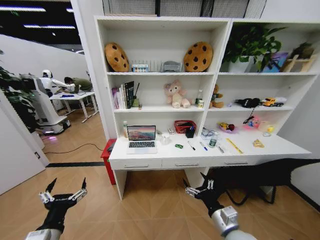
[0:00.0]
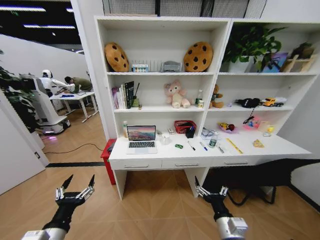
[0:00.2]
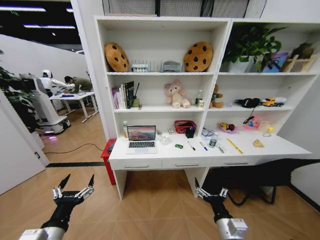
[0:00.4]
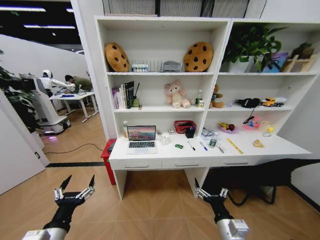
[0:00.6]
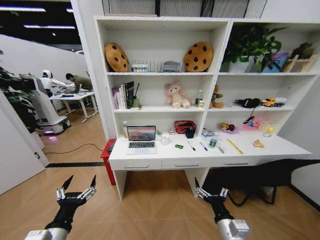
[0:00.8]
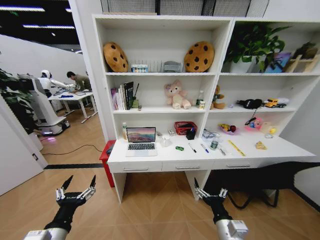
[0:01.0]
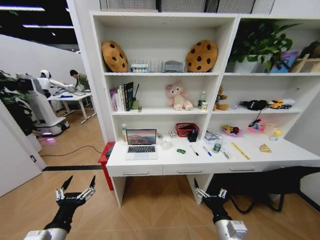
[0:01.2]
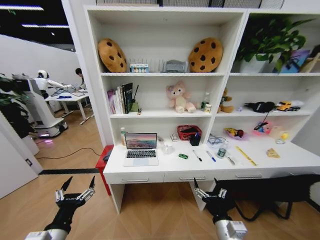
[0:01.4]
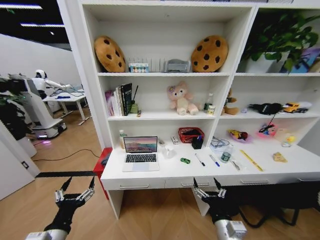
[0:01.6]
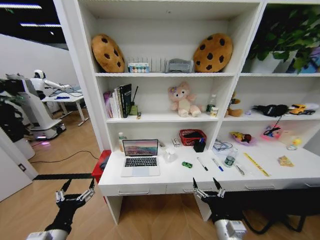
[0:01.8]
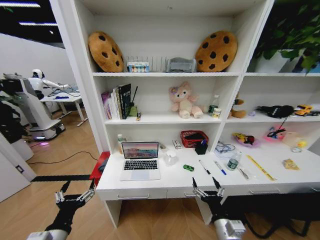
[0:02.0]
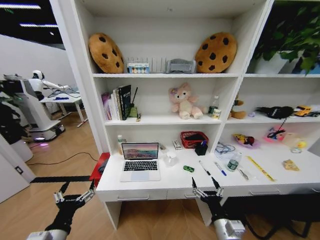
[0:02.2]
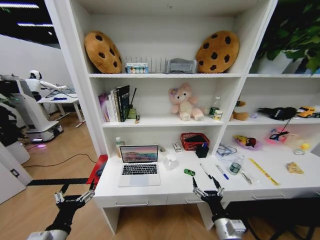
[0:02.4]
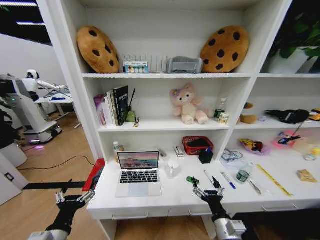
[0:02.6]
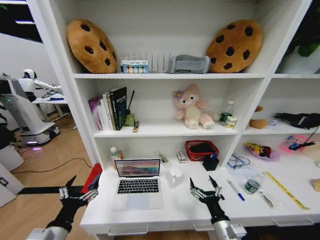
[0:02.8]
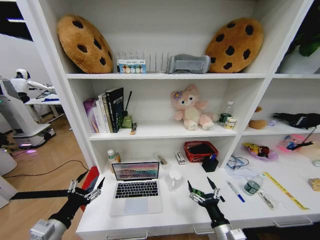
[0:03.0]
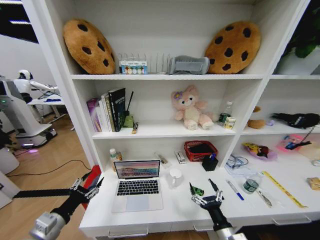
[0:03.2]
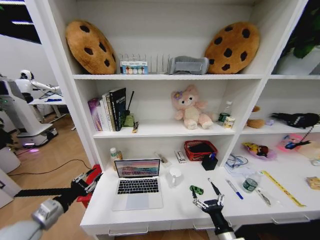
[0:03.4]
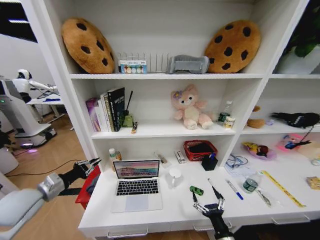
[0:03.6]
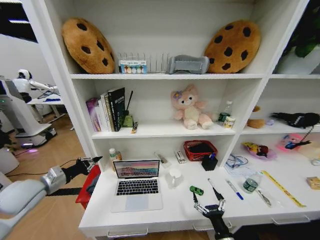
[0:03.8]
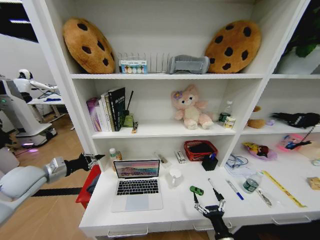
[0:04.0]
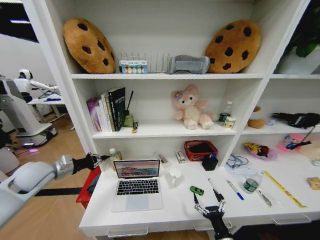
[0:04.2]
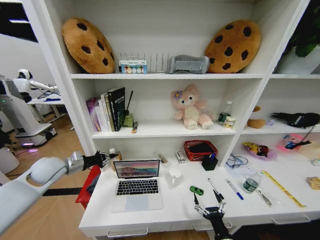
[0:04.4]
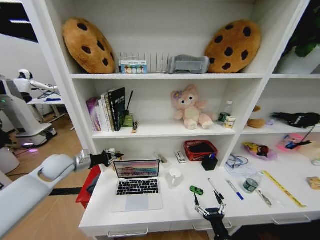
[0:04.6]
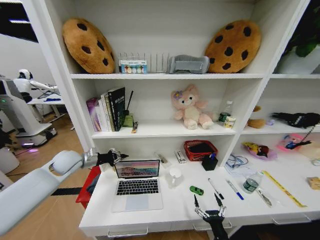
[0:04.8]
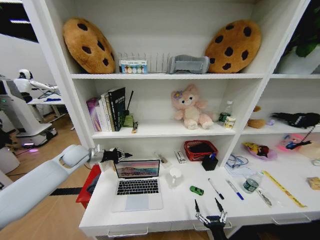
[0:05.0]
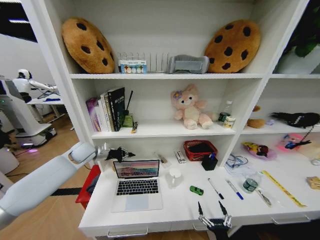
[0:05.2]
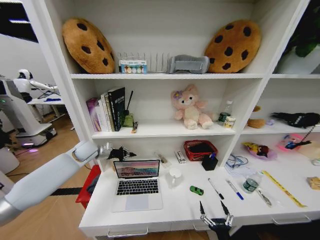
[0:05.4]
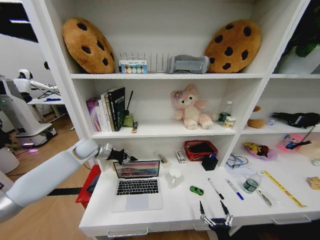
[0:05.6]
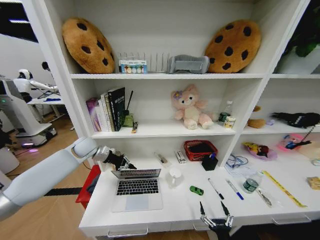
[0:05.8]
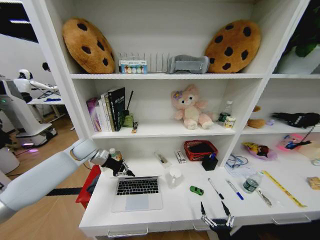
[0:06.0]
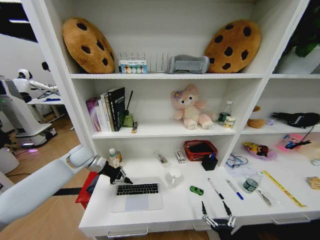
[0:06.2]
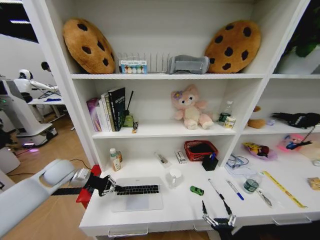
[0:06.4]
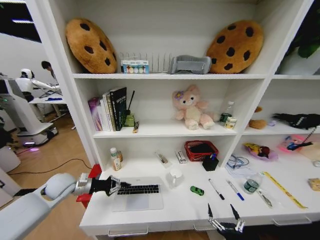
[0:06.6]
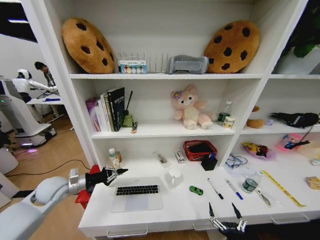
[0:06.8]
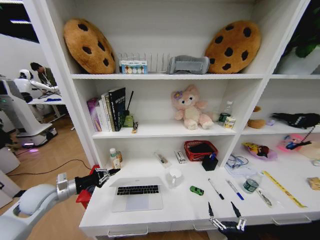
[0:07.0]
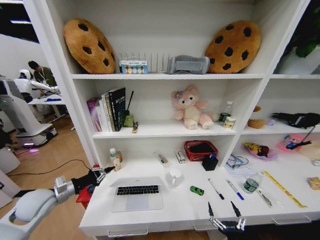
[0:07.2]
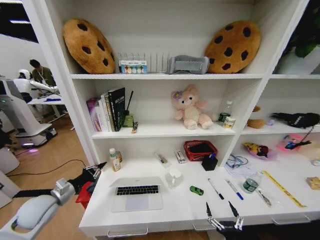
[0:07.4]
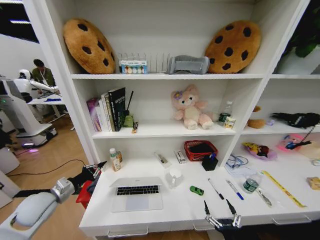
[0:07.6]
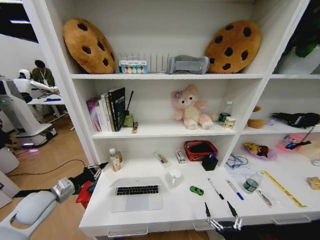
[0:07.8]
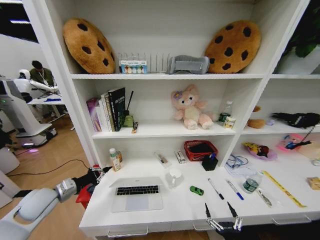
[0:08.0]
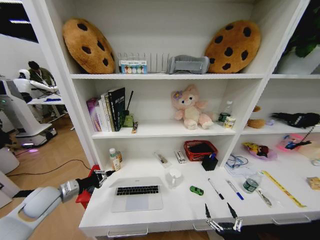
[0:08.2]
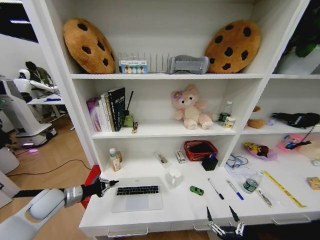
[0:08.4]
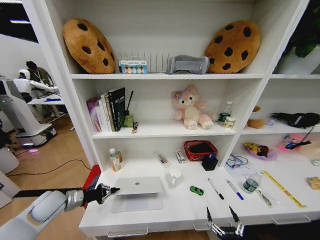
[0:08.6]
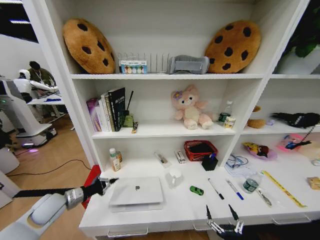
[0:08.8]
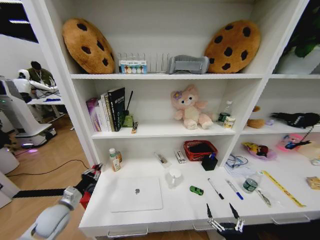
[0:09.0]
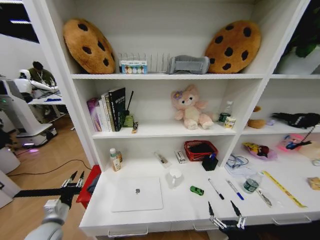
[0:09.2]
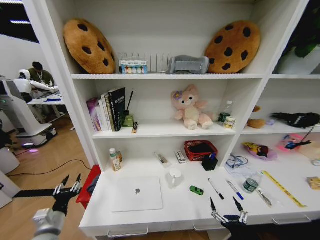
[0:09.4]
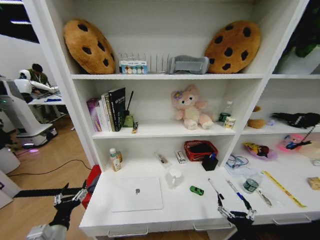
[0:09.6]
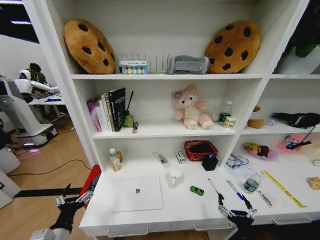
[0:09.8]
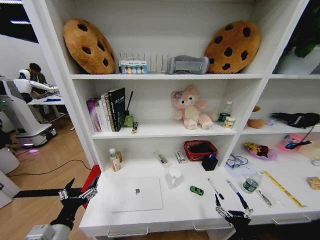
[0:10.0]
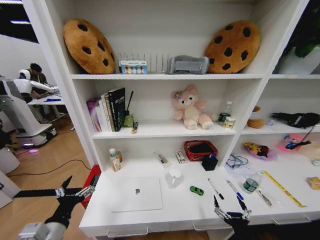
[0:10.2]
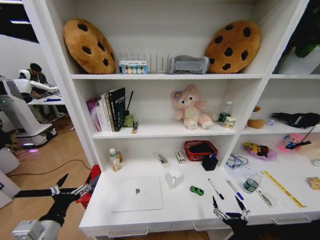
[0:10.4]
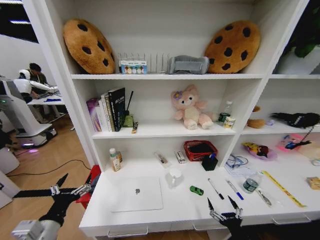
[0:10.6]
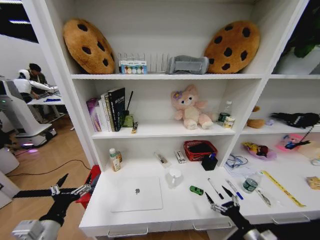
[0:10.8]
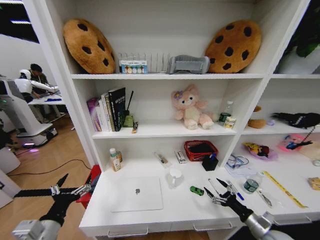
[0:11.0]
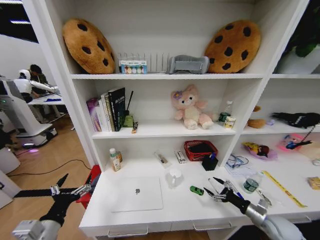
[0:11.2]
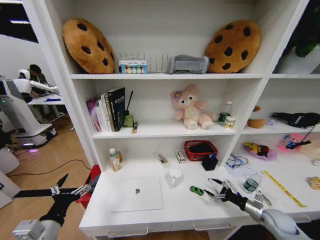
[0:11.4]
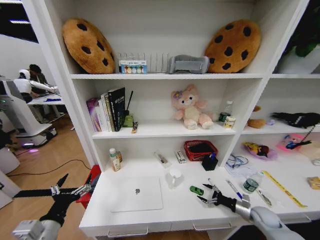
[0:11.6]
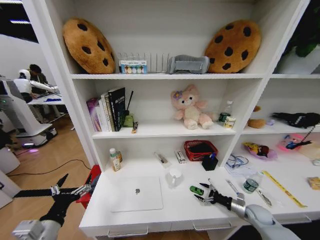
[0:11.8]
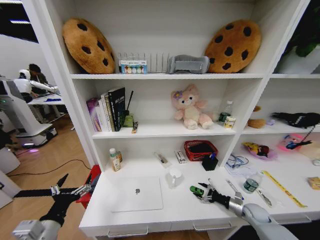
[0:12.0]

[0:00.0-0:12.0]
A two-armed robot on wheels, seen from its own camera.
Task of the whole recording: Organize the objects on the table.
0:03.0 to 0:04.4: The left gripper goes about 25 cm forward, and closes up. Meanwhile the right gripper shifts roughly 5 cm downward.
0:04.4 to 0:06.0: The right gripper moves approximately 5 cm, while the left gripper travels forward and to the right by some 15 cm.
0:06.0 to 0:07.6: The left gripper heads backward, to the left and downward, covering roughly 25 cm.
0:07.6 to 0:09.0: The left gripper travels downward by about 10 cm.
0:09.0 to 0:10.4: The right gripper shifts by about 5 cm; the left gripper is displaced backward, upward and to the right by roughly 15 cm, and opens up.
0:10.4 to 0:12.0: The right gripper goes some 30 cm forward and to the right.

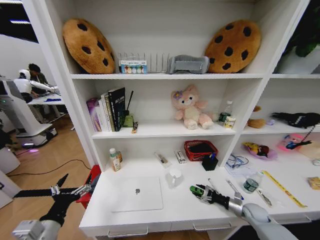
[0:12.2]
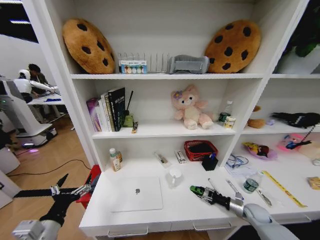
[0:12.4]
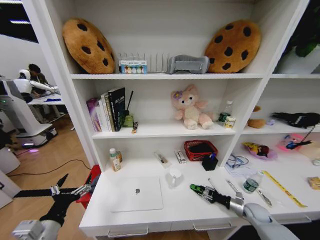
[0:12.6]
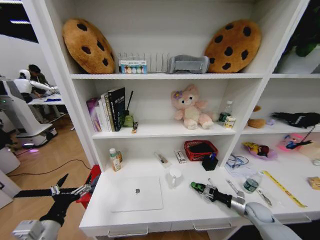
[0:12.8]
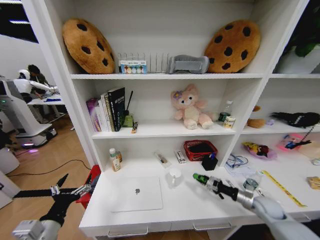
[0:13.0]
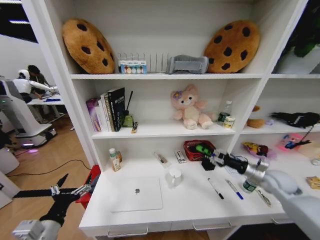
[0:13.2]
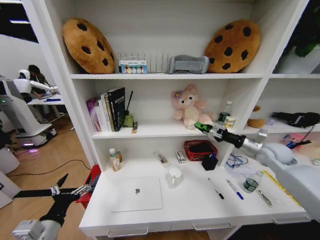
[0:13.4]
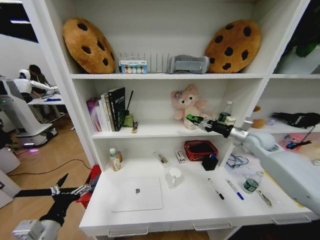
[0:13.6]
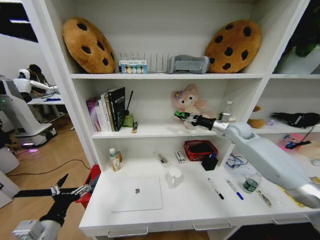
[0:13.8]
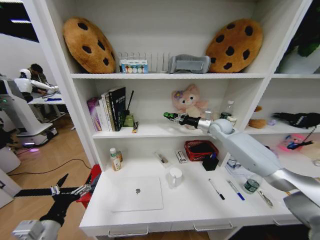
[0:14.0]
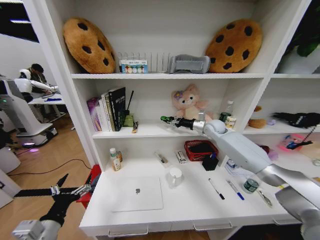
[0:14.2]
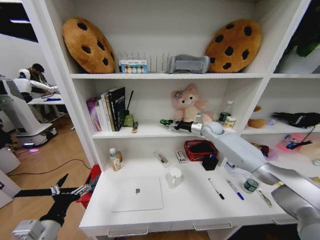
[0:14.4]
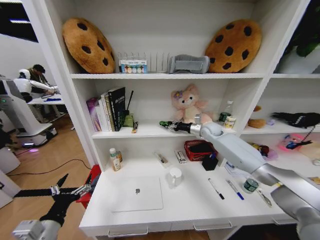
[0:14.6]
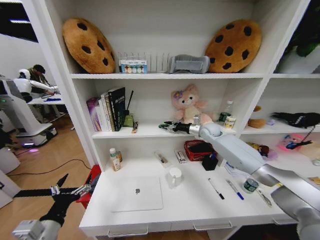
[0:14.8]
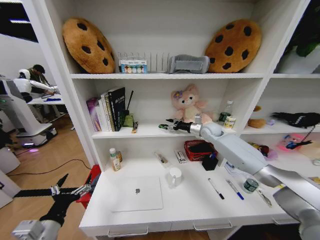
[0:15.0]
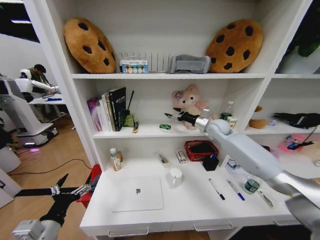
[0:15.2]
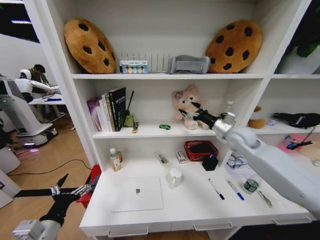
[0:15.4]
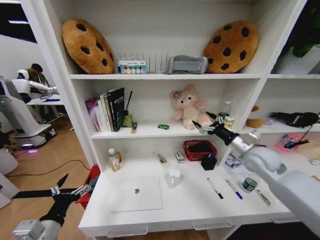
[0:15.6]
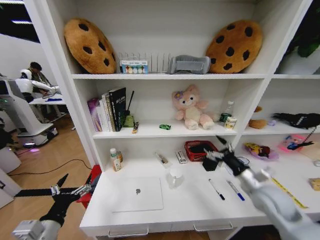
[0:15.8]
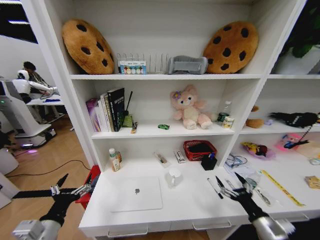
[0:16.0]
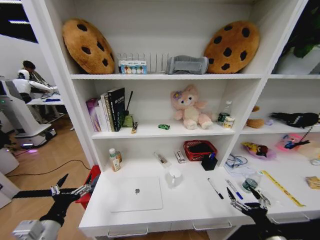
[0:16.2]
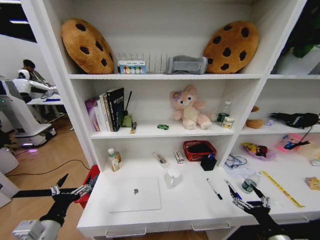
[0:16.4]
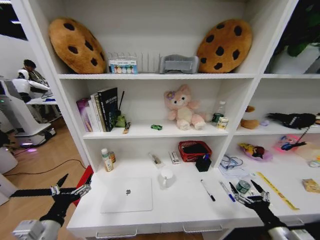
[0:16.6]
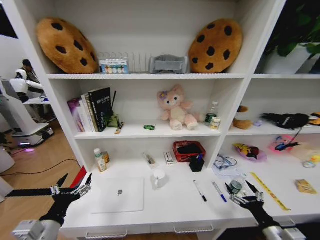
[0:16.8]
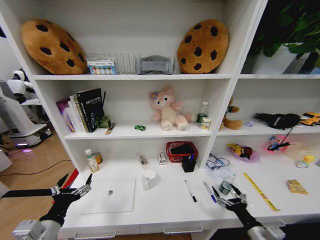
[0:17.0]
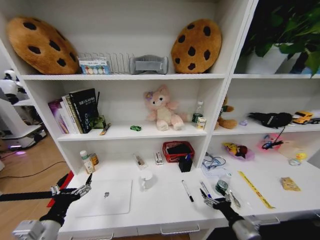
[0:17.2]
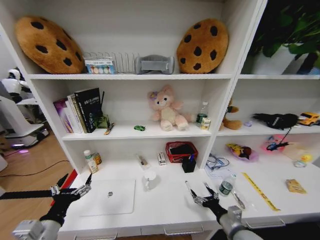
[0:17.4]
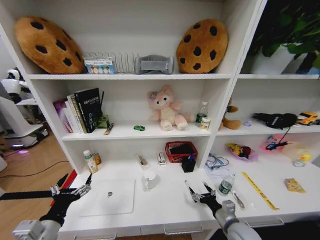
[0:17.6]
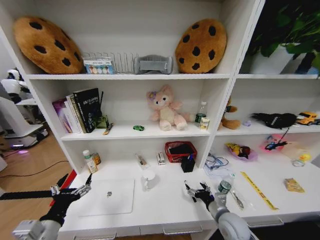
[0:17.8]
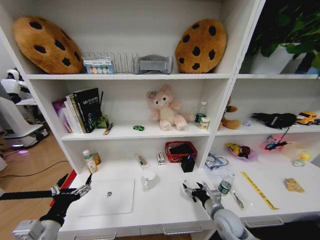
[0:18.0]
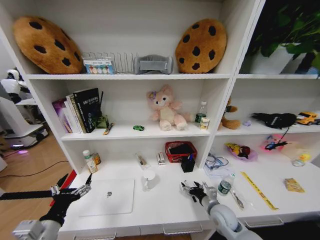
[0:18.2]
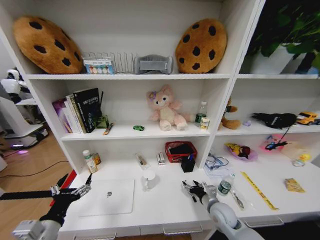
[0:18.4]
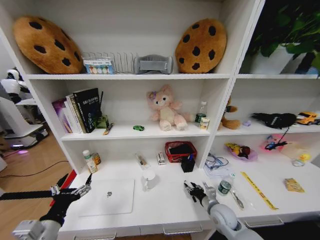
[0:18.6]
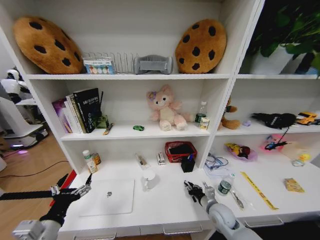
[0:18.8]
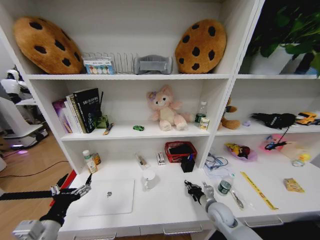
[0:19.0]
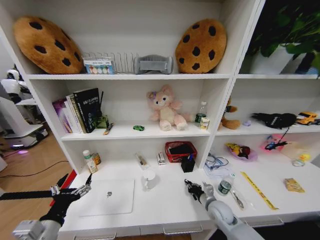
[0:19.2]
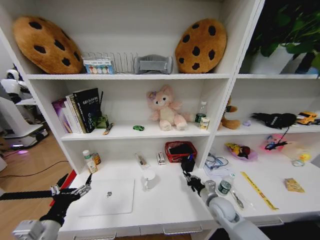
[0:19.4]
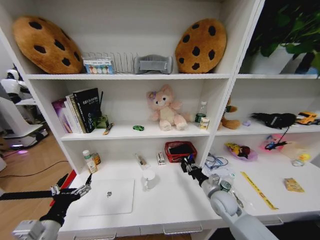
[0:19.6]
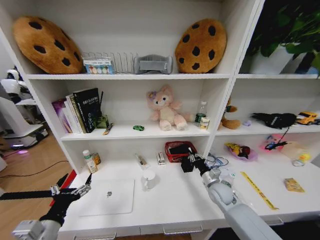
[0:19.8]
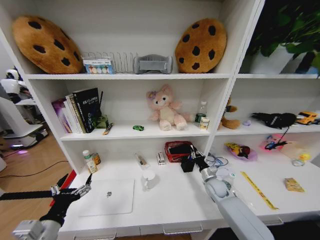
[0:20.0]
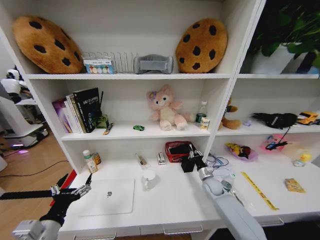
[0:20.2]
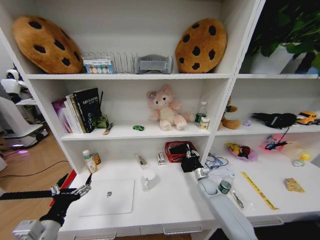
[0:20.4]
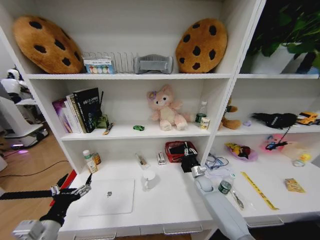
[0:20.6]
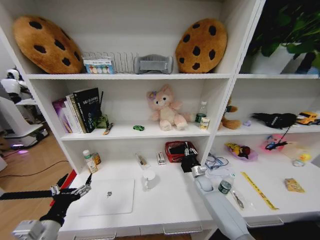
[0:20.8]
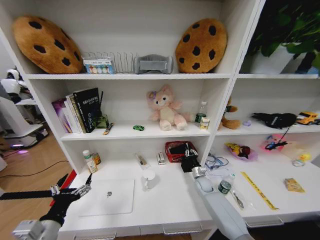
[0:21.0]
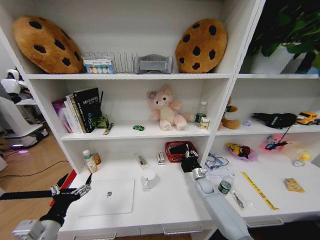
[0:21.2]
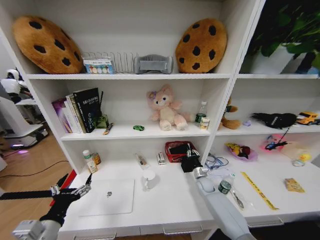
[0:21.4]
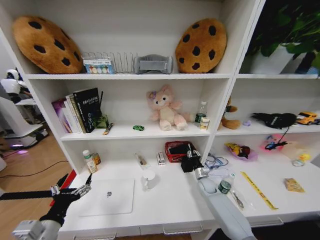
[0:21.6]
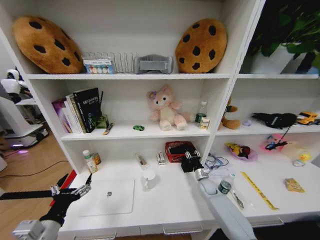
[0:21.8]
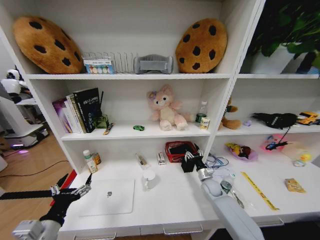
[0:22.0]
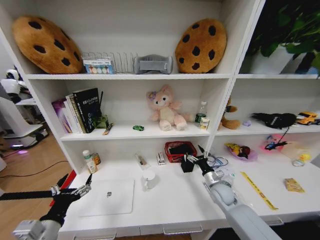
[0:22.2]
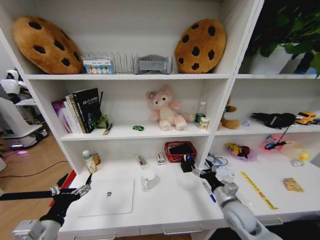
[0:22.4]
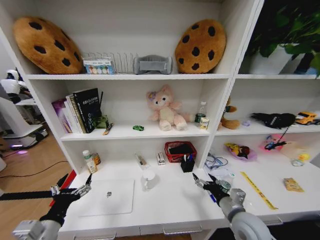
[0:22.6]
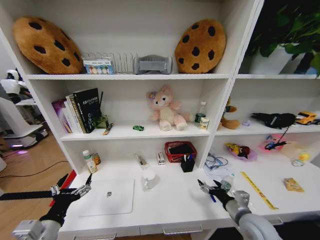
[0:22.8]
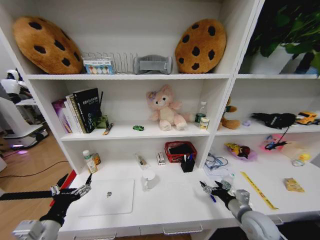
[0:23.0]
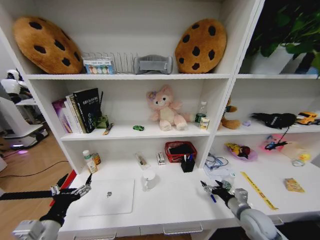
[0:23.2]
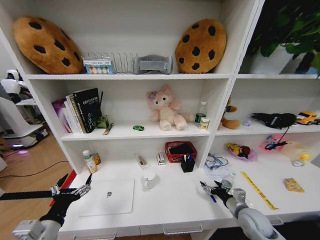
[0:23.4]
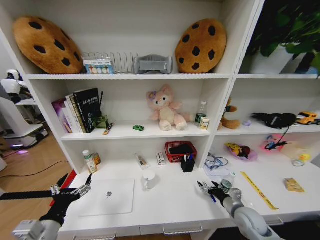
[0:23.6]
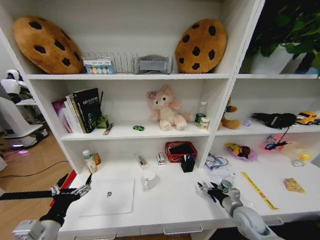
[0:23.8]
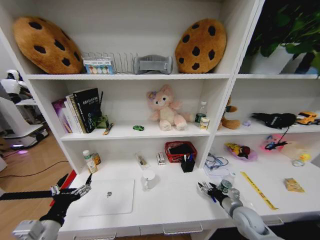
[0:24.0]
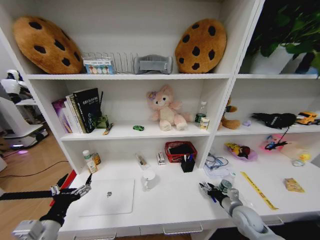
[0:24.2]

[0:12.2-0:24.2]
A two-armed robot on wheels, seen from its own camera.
Task of the whole recording: Organize the objects on the table.
0:12.2 to 0:13.8: The right gripper moves upward and forward, roughly 40 cm.
0:13.8 to 0:15.2: The right gripper travels to the left and forward by some 10 cm, and opens.
0:15.2 to 0:16.6: The right gripper is displaced backward and downward by roughly 50 cm.
0:16.6 to 0:18.2: The right gripper is displaced forward and to the left by some 20 cm.
0:18.2 to 0:19.8: The right gripper heads forward, covering some 10 cm, and closes up.
0:19.8 to 0:21.2: The right gripper travels downward and forward by about 15 cm.
0:21.2 to 0:22.6: The right gripper moves backward and upward, some 25 cm, and opens its fingers.
0:22.6 to 0:24.2: The right gripper goes roughly 10 cm downward and to the right, and closes up.
